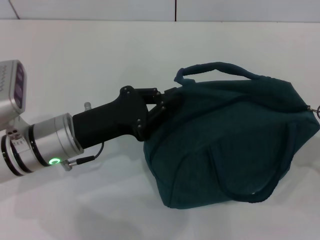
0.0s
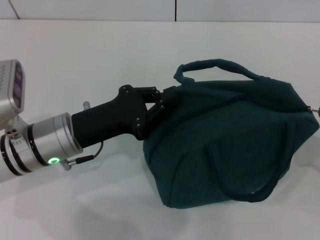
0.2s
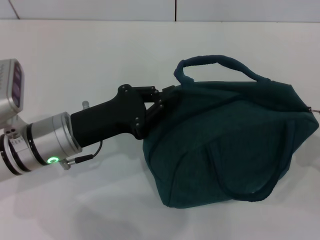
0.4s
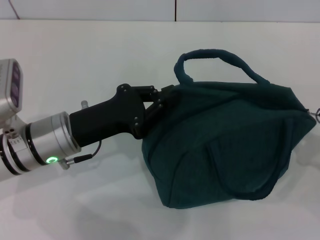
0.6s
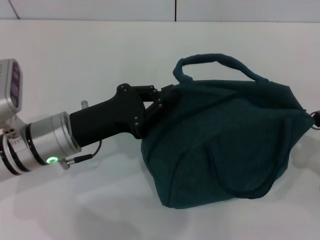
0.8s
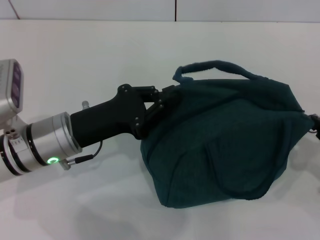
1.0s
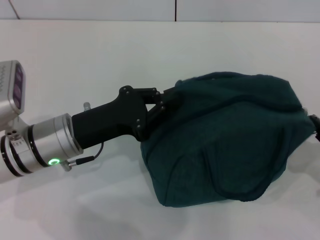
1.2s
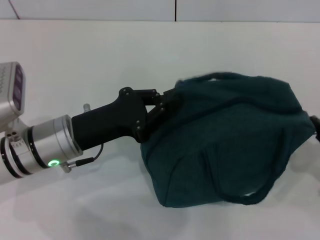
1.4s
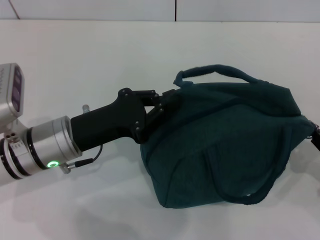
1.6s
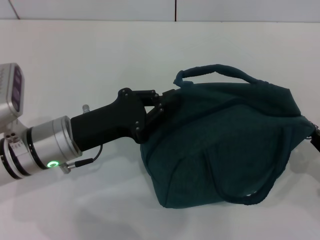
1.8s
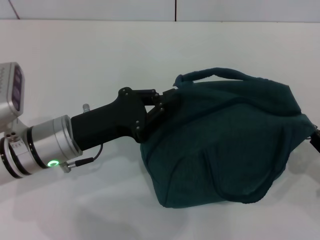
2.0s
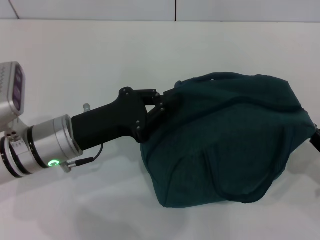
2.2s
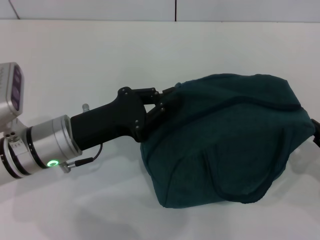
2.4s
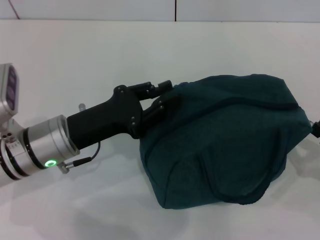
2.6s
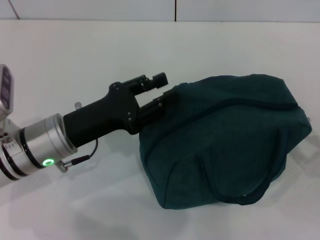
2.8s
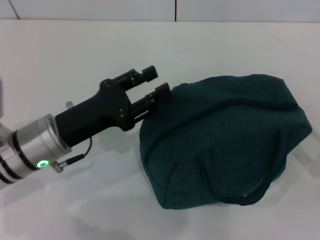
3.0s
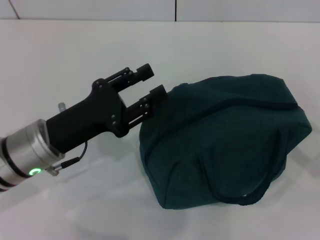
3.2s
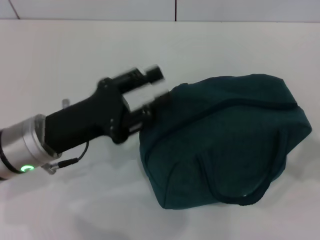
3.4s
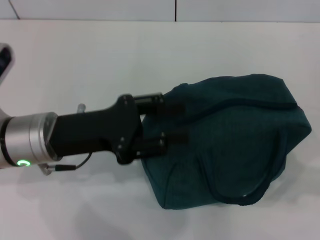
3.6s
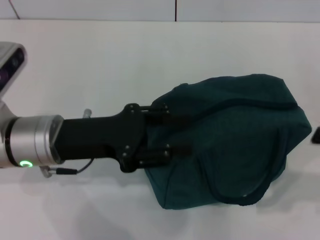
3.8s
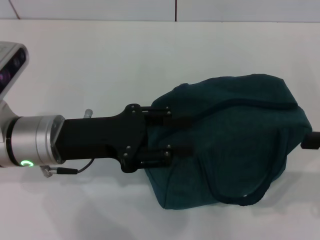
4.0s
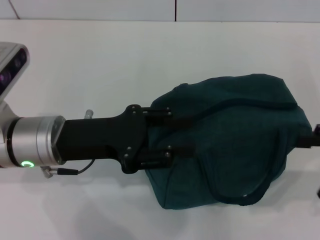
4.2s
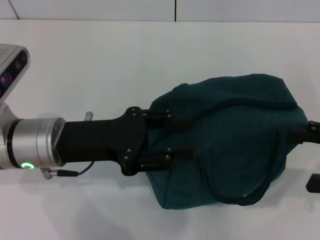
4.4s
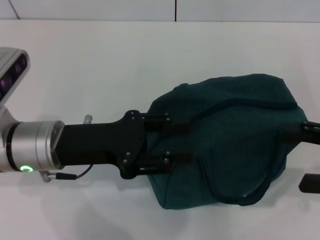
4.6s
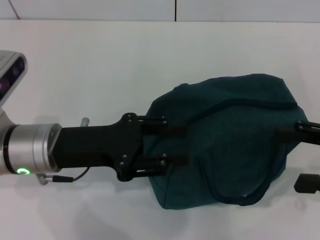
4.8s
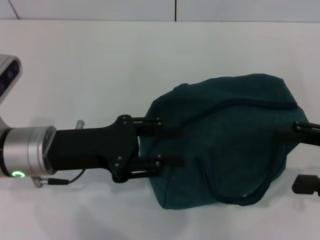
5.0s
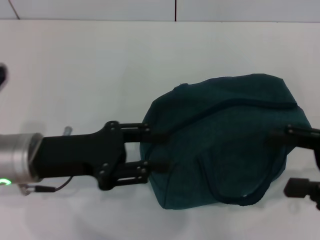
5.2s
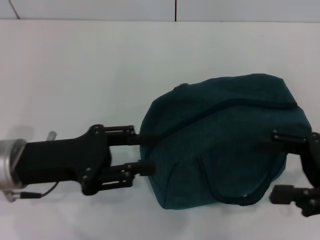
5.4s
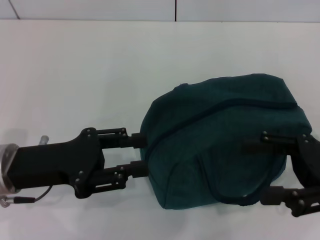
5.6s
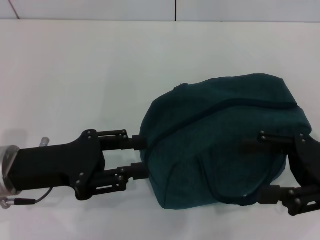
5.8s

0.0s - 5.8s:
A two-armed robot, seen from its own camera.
Step, 0.0s - 2.6s: Hold the lunch bag with your left hand.
0.0s - 2.8s: The grippers move only a little.
2.8s - 4.4s: The right gripper shifts approximately 10 cm upward, and opens up. Meanwhile the left gripper opens up.
4.4s - 5.8s: The grippers both shift to the left by some 5 cm.

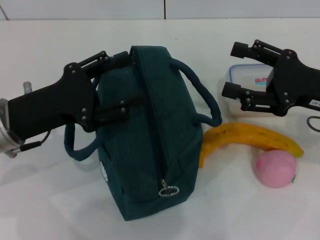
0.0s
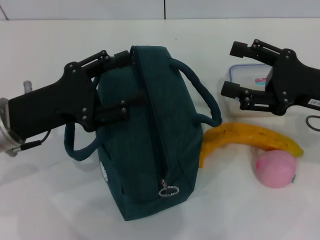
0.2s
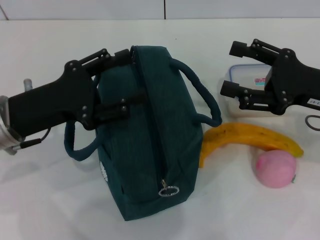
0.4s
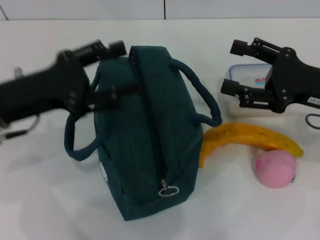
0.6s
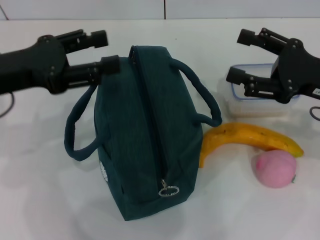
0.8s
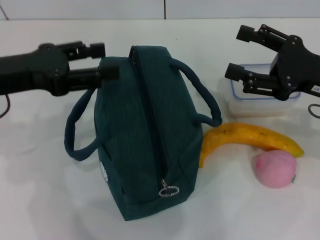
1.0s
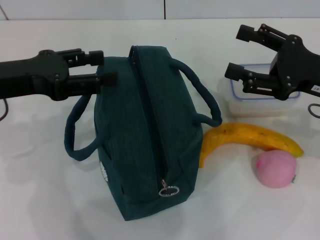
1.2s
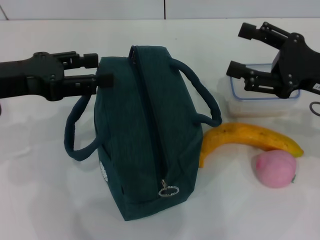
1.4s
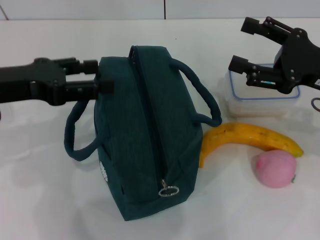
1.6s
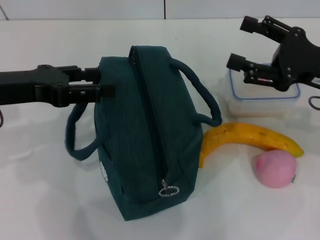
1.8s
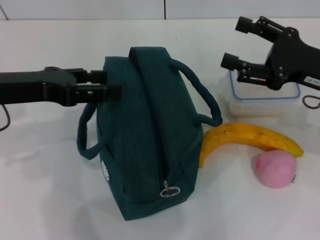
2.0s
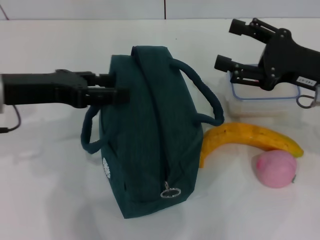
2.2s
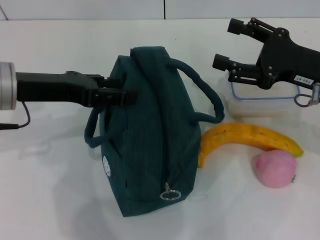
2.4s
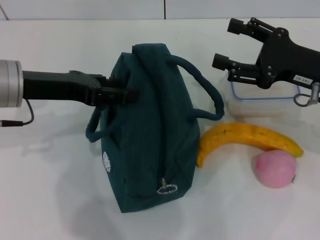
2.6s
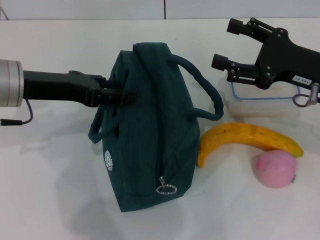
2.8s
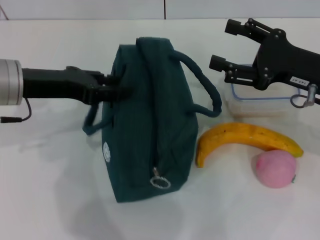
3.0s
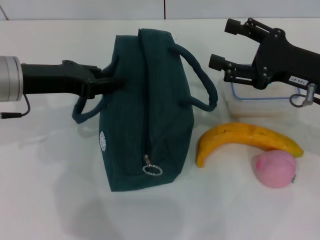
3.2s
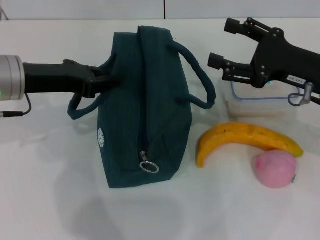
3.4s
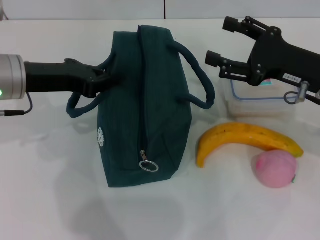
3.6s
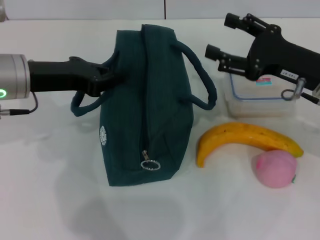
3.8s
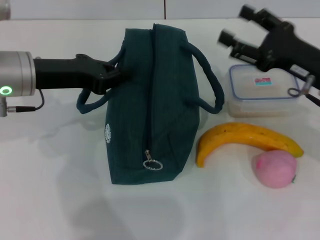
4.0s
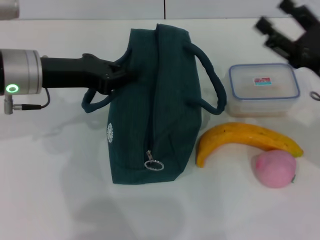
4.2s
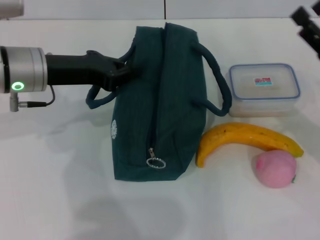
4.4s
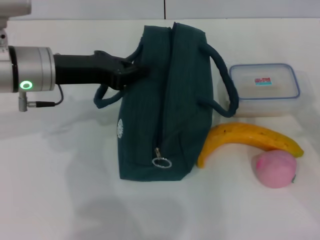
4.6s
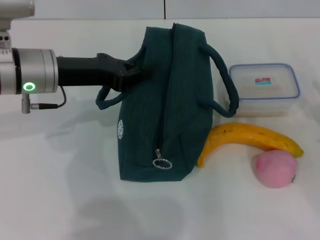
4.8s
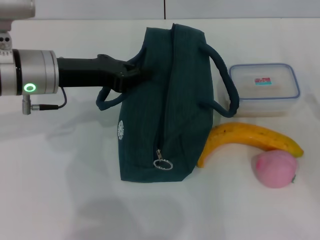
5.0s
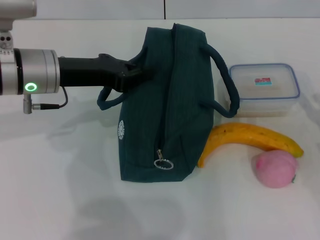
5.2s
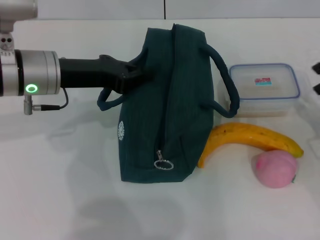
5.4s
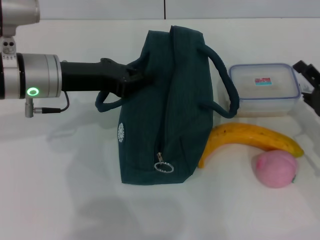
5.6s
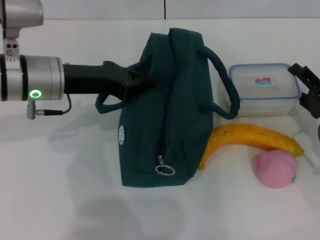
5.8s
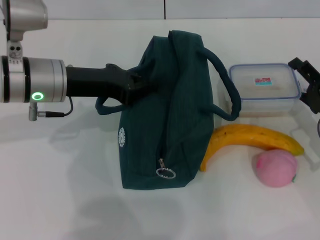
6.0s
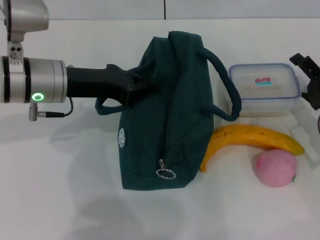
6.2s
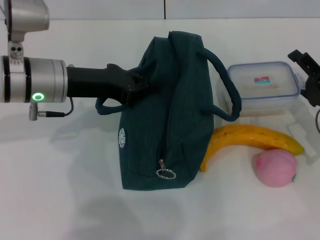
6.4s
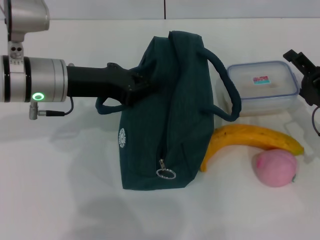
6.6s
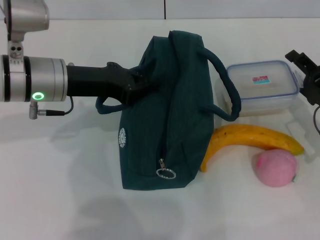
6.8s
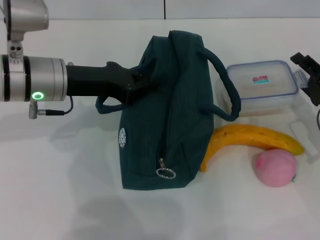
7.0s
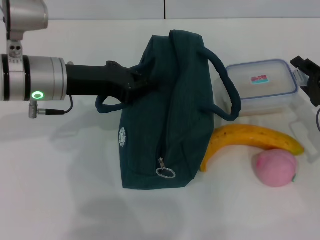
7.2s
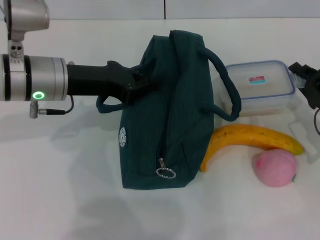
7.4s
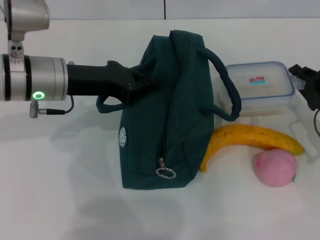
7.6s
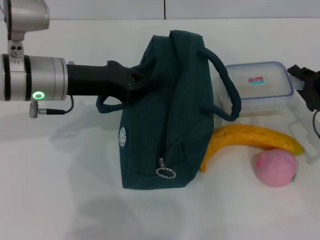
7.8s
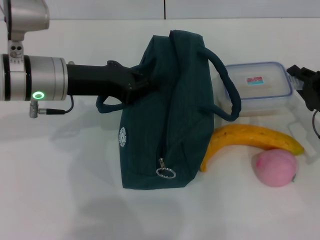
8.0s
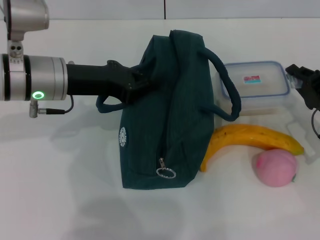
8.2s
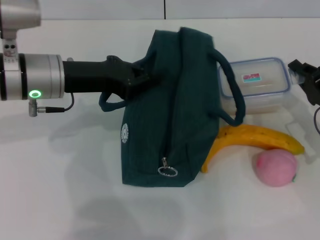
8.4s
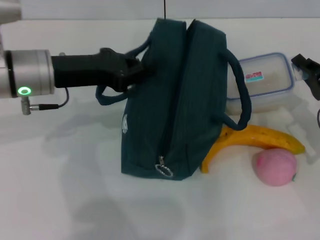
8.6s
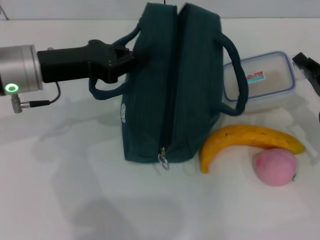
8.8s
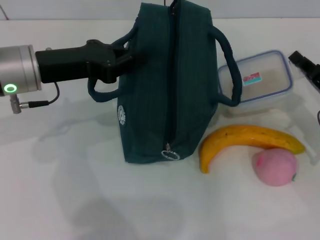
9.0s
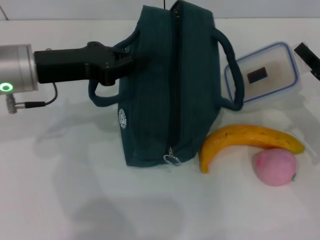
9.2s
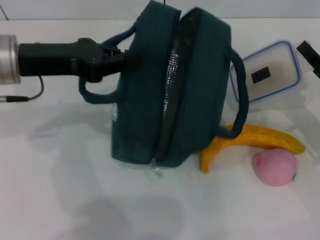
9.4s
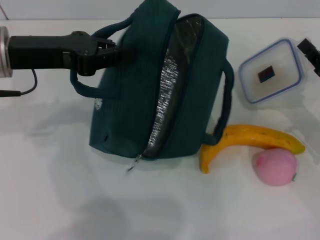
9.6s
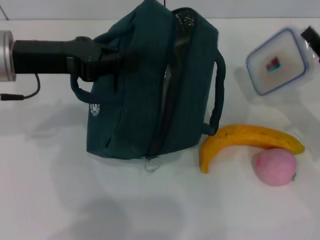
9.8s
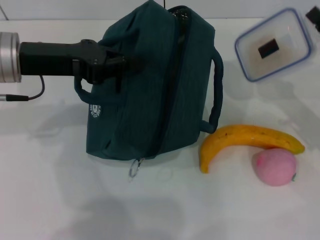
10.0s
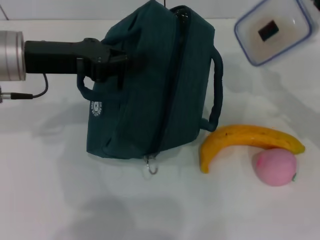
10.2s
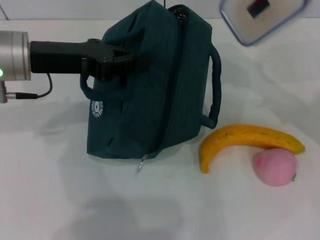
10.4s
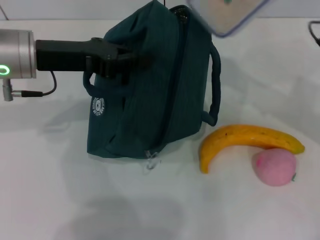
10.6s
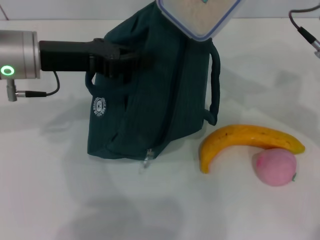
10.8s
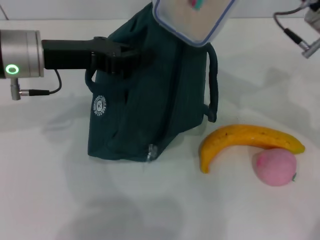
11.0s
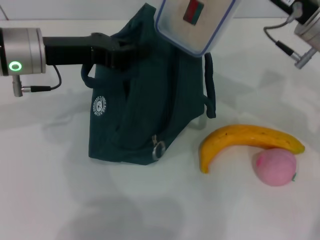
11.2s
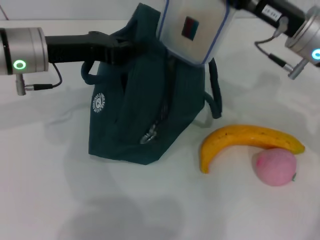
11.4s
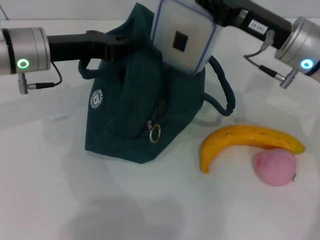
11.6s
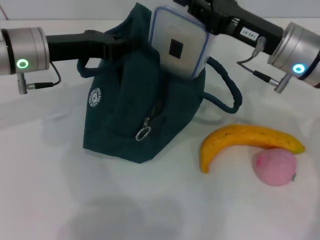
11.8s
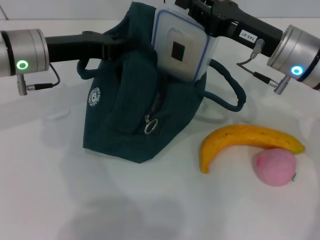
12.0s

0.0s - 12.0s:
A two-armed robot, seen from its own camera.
Step, 0.0s - 4.6s: Hold the lunch bag with your left hand.
Step, 4.8s - 8.4s: Pick up the lunch box with your right hand.
0.0s - 1.6s: The left gripper is displaced upward by some 5 cm.
1.6s - 3.0s: The left gripper moves approximately 5 cm.
3.0s - 4.4s: The left gripper closes up. Meanwhile the right gripper moves about 5 cm.
4.4s - 6.0s: The right gripper moves downward, roughly 5 cm.
6.0s - 7.6s: The right gripper closes up.
9.0s - 10.4s: The right gripper is displaced upward by some 10 cm.
10.4s - 12.0s: The right gripper is displaced to the left by about 10 cm.

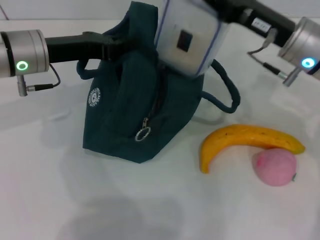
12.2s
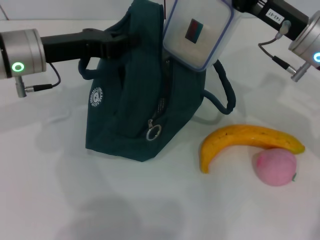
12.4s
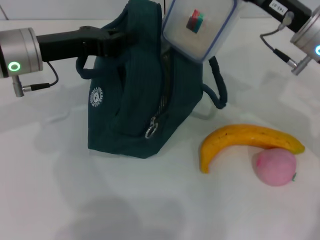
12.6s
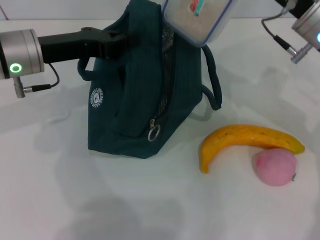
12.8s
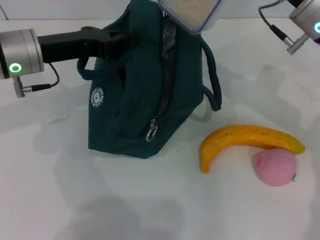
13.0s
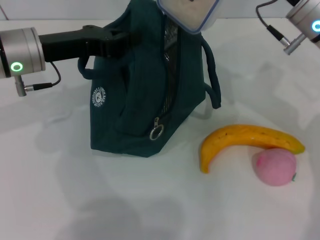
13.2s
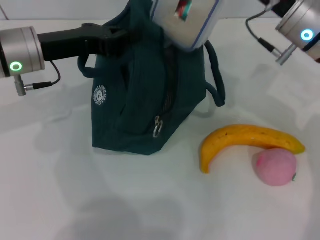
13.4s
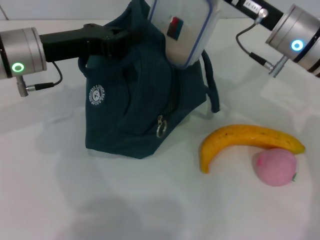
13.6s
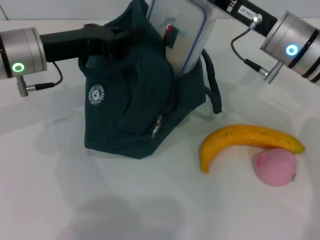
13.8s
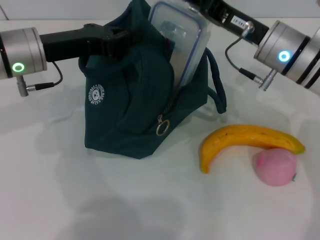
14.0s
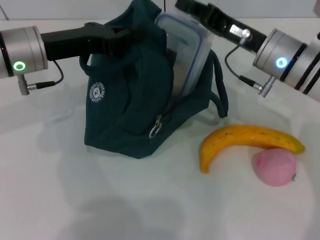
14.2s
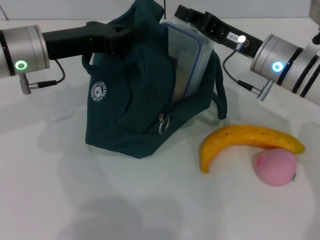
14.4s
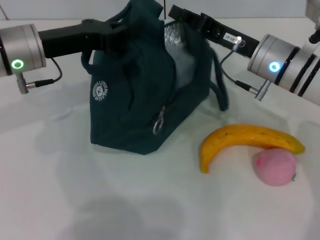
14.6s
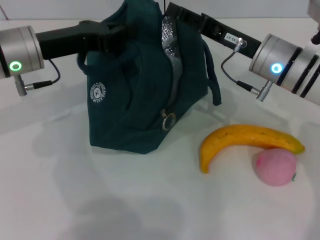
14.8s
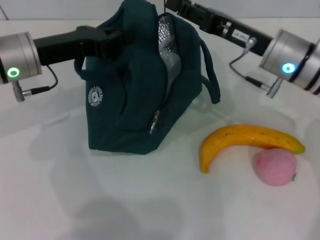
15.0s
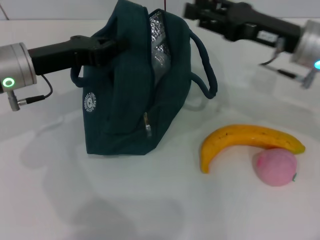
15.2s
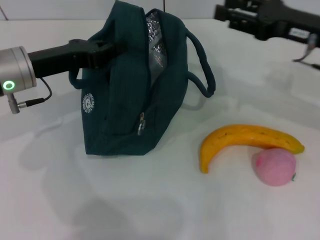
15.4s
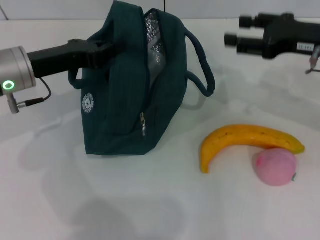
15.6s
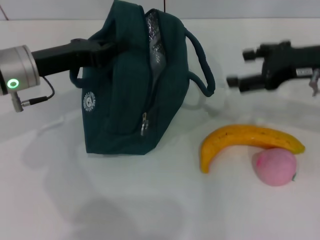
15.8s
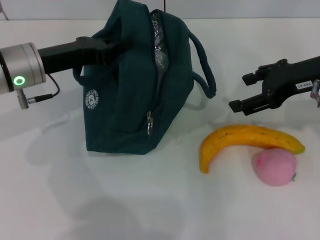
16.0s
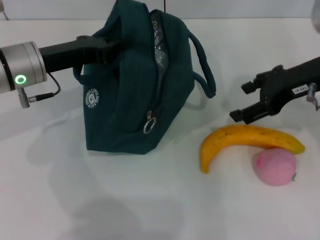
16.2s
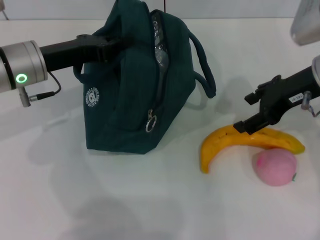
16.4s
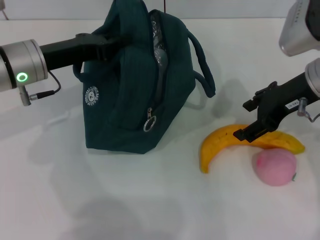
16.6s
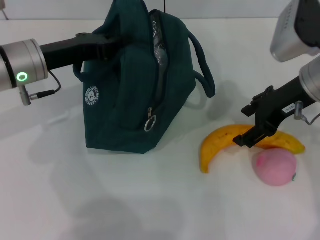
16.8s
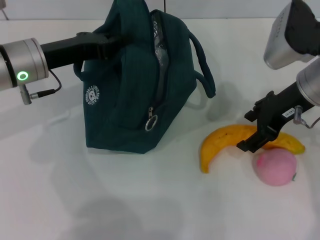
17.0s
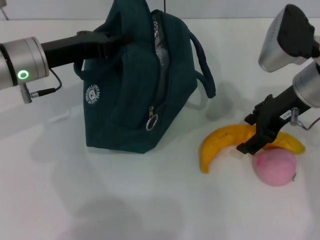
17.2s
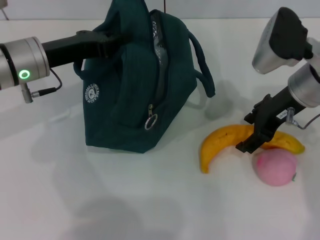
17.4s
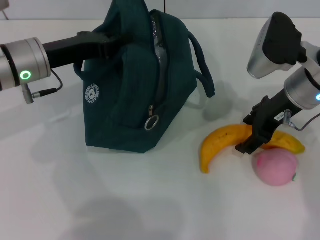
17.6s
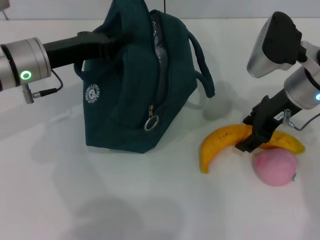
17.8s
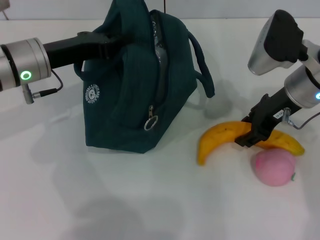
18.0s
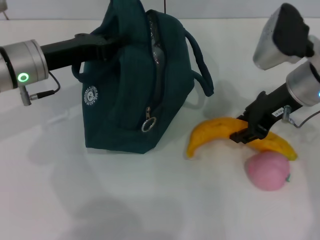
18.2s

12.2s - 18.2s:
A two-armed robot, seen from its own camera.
Step, 12.2s - 14.8s: Place the lunch box into the lunch bag with your right hand.
Step, 15.2s - 17.8s: Take the banana with your right hand.
12.2s - 13.8s: There are only small adjustments of the grippers.
13.8s - 15.2s: The right gripper opens its fingers.
15.2s - 16.6s: The right gripper opens.
16.6s - 18.2s: The right gripper closes up.
